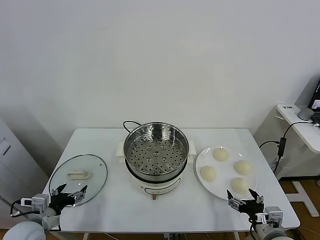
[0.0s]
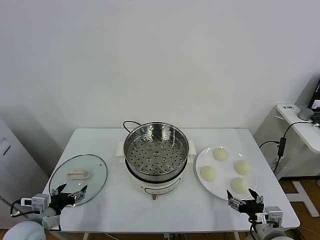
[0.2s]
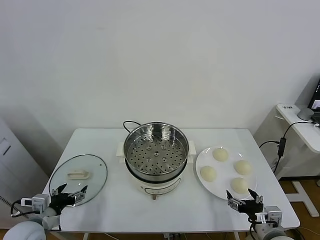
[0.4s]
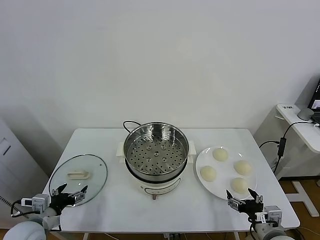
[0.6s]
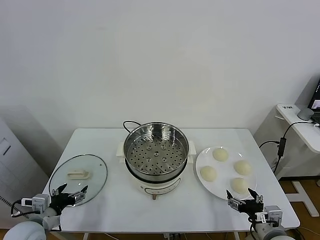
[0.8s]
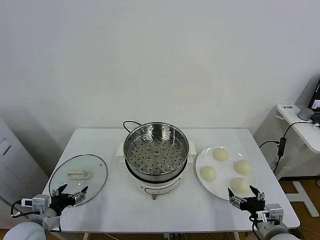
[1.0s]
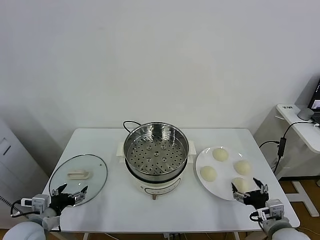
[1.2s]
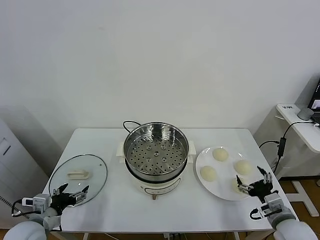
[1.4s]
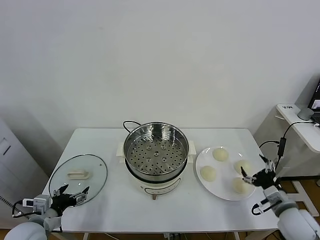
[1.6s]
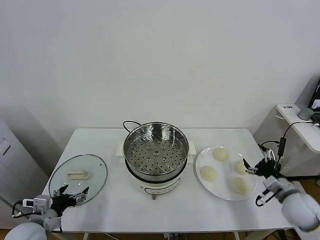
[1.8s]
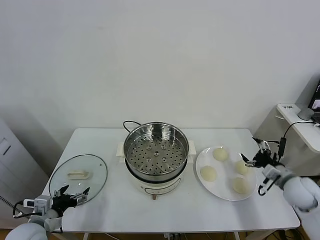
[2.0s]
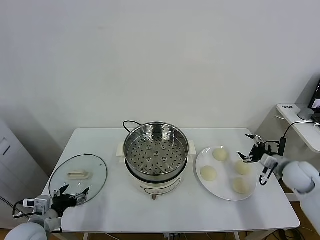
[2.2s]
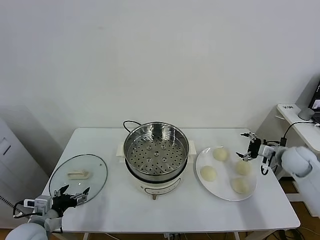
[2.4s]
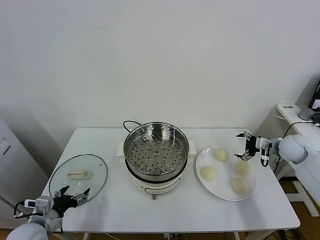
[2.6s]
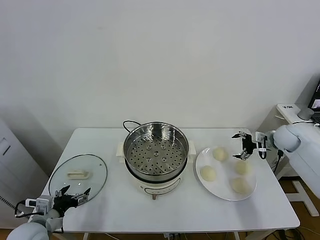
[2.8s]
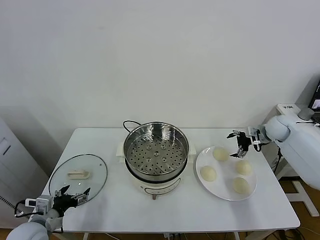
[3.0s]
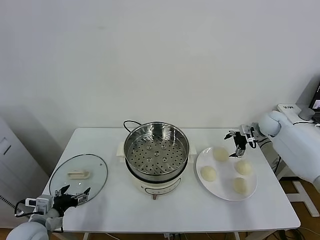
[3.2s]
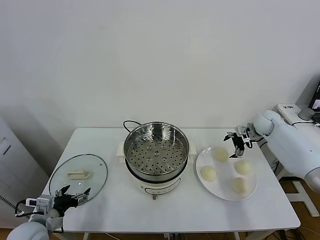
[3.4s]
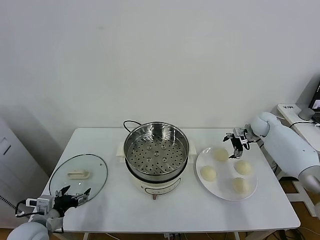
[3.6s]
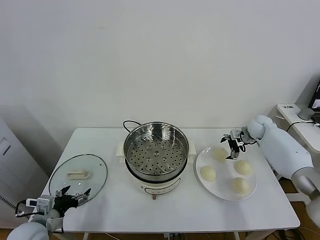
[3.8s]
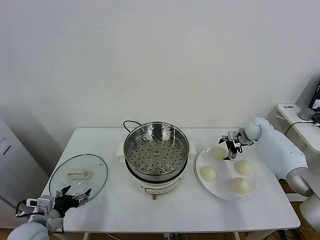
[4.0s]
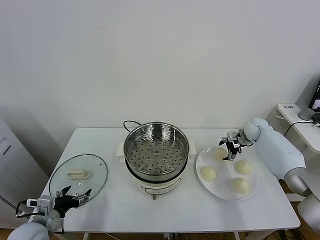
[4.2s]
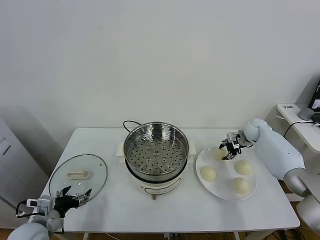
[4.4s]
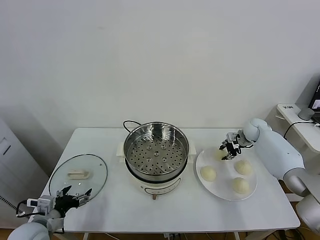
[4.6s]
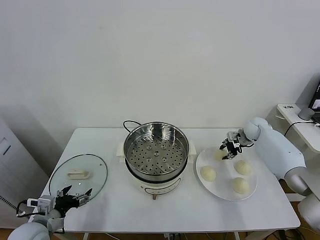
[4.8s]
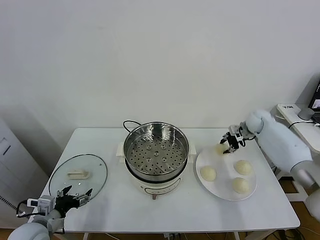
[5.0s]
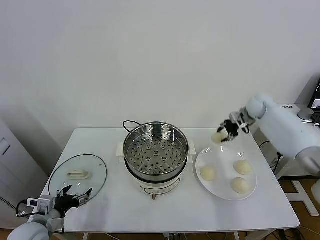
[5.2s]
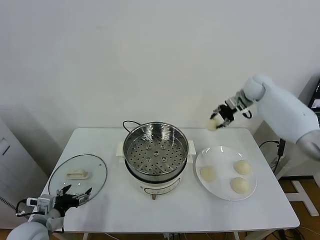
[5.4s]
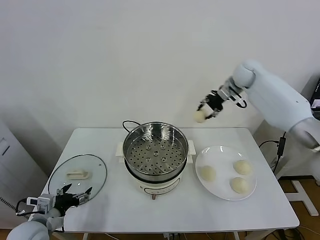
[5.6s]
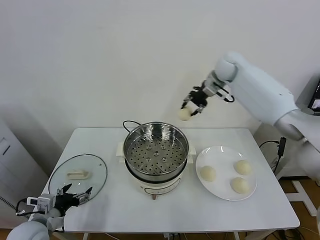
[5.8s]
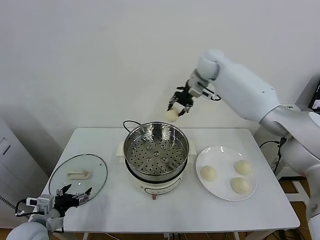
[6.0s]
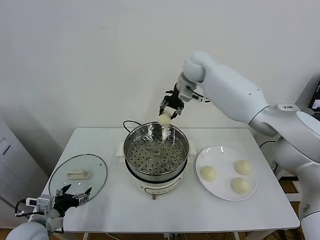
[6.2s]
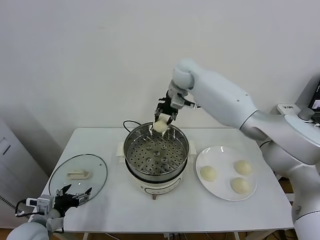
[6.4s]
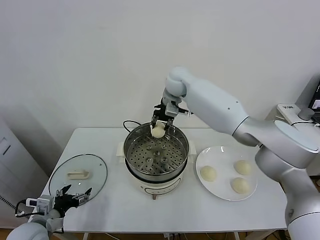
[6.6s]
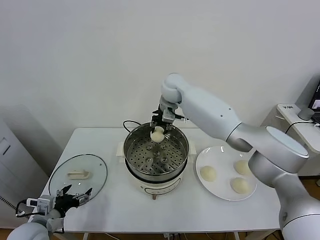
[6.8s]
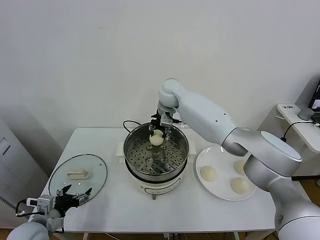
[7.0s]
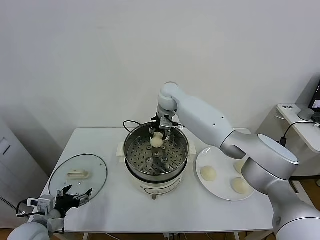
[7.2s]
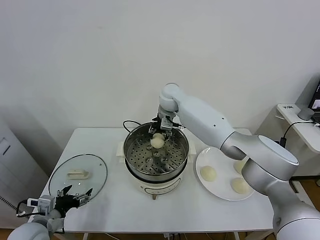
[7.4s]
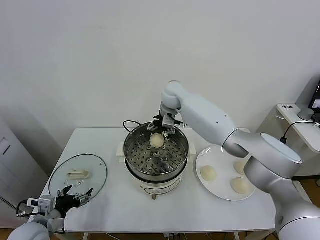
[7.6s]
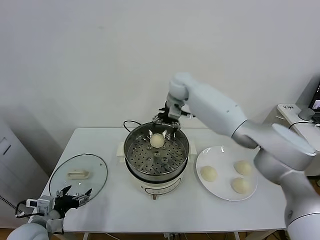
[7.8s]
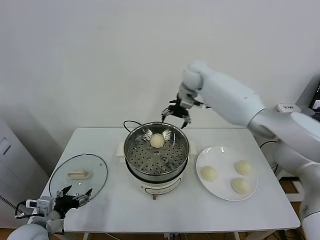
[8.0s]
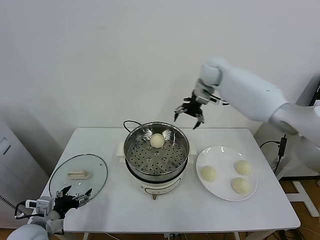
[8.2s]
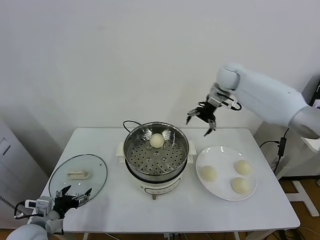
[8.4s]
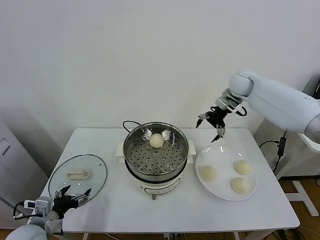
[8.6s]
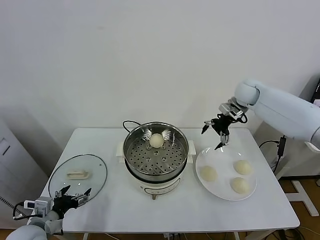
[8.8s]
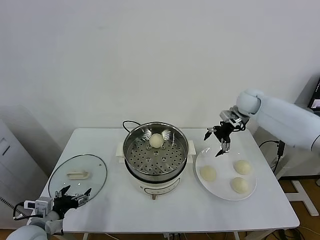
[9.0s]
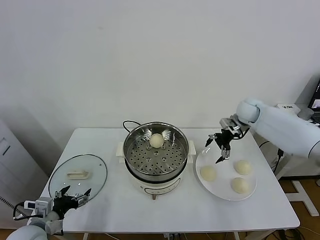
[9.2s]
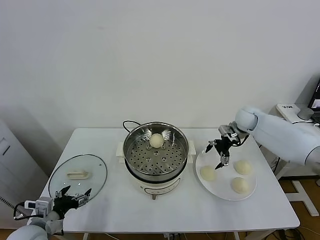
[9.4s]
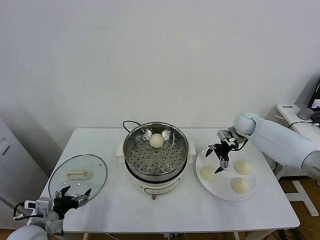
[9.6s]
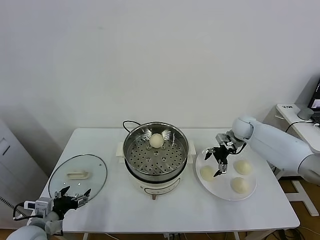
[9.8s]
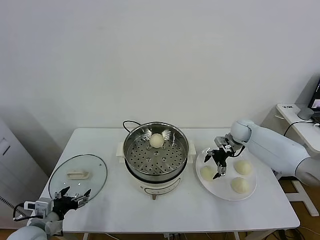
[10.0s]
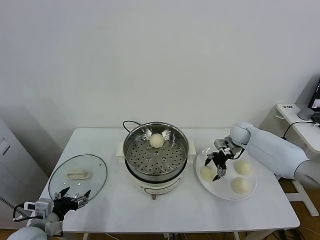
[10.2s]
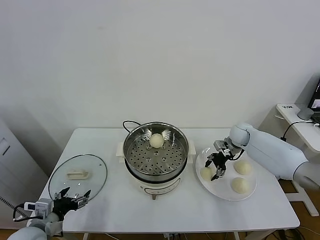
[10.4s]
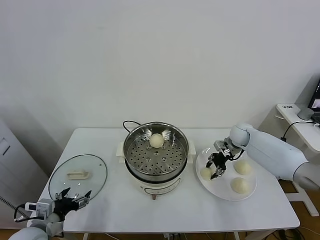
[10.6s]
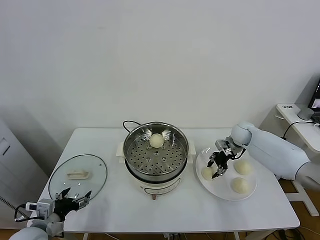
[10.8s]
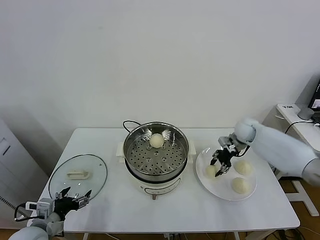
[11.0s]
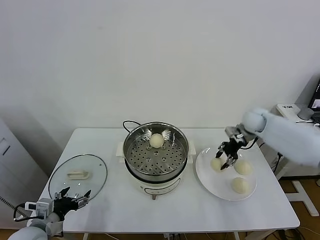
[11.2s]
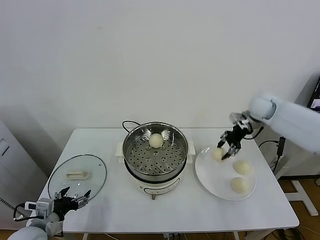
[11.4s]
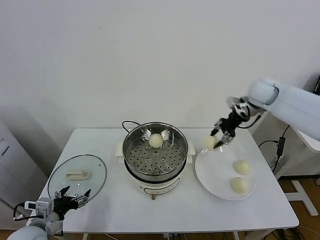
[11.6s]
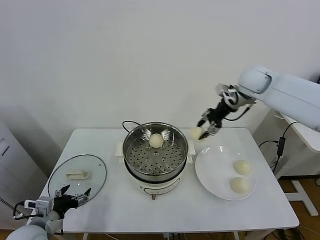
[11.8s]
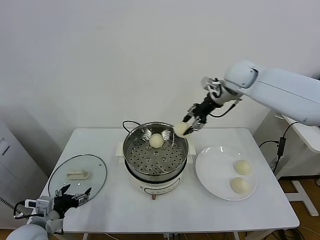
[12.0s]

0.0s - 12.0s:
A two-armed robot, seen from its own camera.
Task of the whole recording: take steamed baozi put them in steamer.
Step, 0.0s - 4.4s: Grasp the baozi in the plate with right gripper.
Step, 4.6s - 7.6s: Place the baozi on the steamer with right gripper.
Step, 8.0s - 10.4s: Grasp the baozi in the plate with right gripper.
1.6s - 3.0s: The right gripper is displaced forward by approximately 30 cm.
3.0s - 4.4s: The right gripper goes approximately 5 cm downward, and closes up.
4.4s - 6.0s: The right gripper shifts about 40 cm upward and to the left.
6.0s - 7.6s: The right gripper goes about 15 cm downward and to the left, and opens up.
7.6s - 9.0s: The right gripper moves to the right, some 30 cm.
9.0s - 10.4s: The right gripper travels downward by some 15 cm, and closes its fingers.
10.4s - 12.0s: The right gripper goes roughly 30 cm upward and to the left.

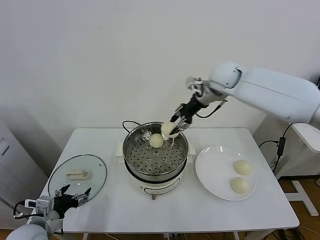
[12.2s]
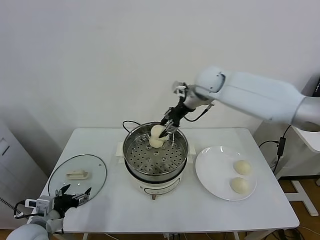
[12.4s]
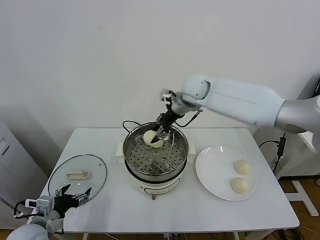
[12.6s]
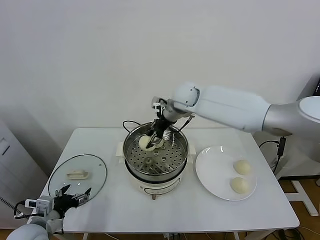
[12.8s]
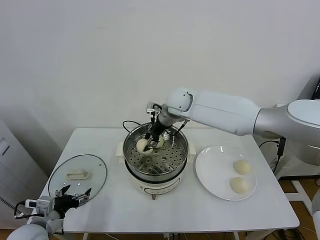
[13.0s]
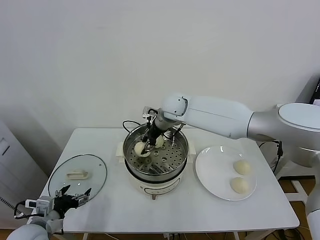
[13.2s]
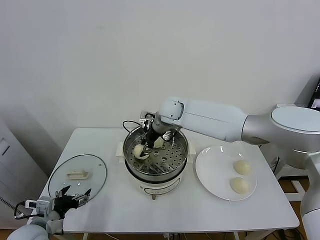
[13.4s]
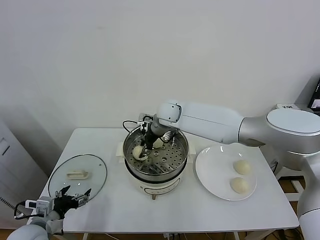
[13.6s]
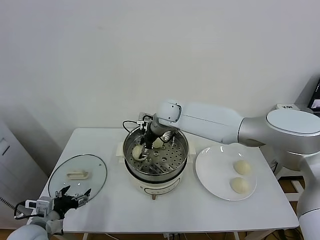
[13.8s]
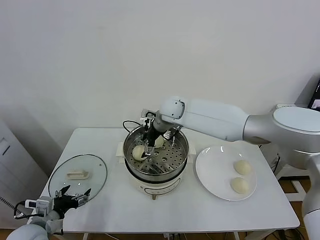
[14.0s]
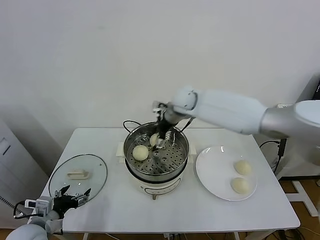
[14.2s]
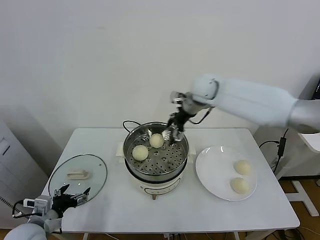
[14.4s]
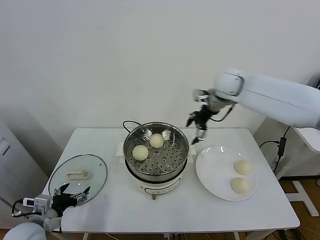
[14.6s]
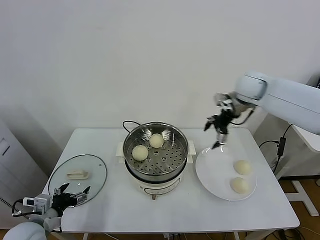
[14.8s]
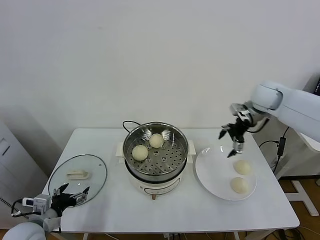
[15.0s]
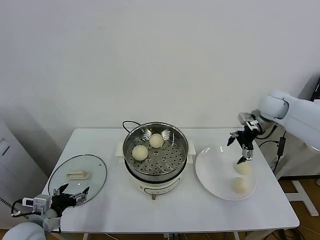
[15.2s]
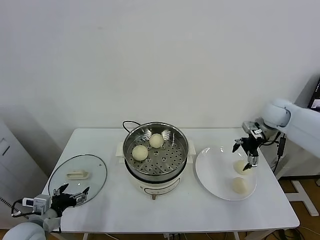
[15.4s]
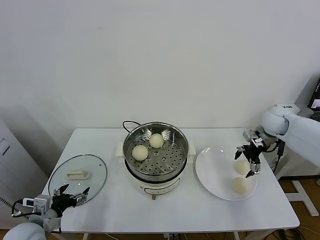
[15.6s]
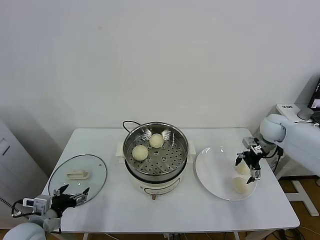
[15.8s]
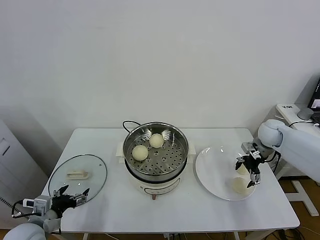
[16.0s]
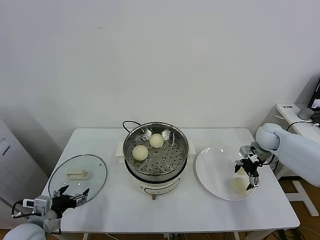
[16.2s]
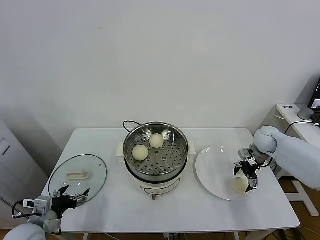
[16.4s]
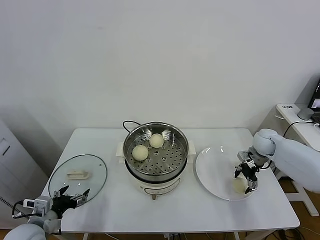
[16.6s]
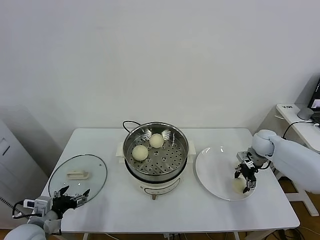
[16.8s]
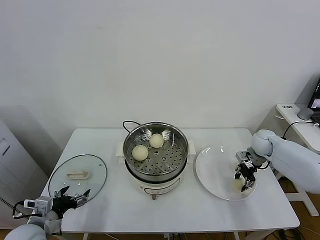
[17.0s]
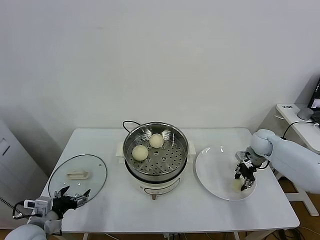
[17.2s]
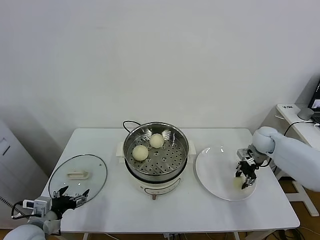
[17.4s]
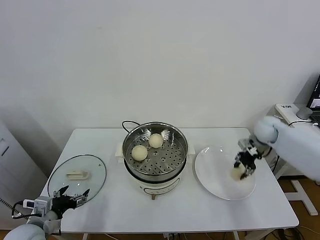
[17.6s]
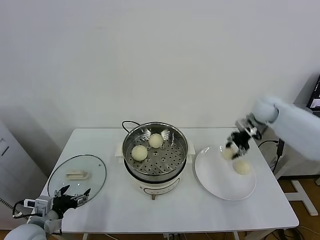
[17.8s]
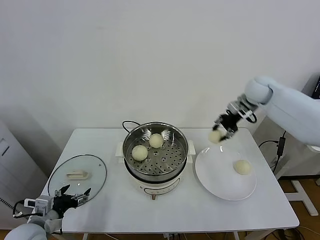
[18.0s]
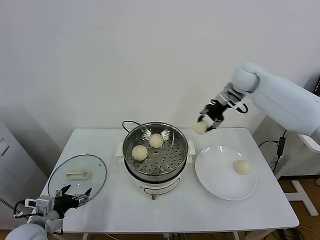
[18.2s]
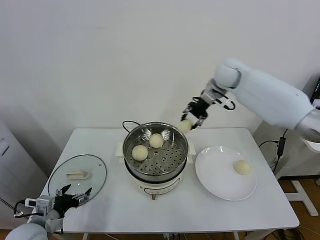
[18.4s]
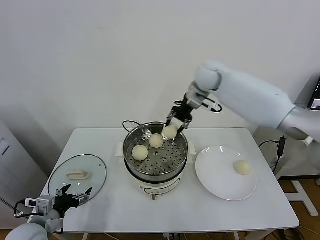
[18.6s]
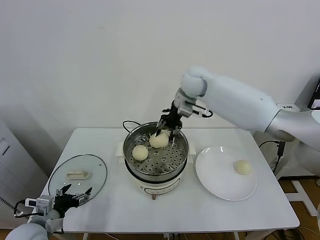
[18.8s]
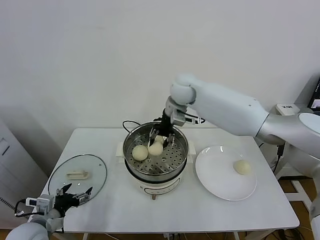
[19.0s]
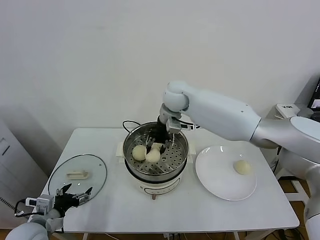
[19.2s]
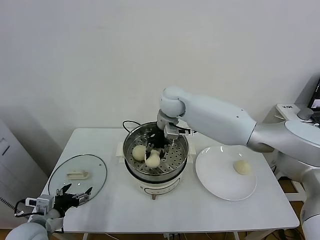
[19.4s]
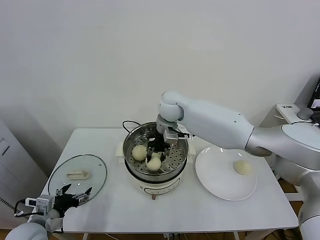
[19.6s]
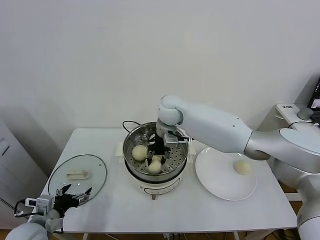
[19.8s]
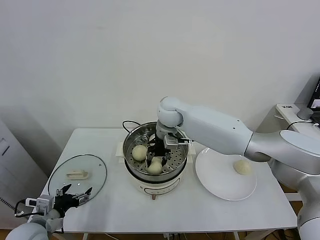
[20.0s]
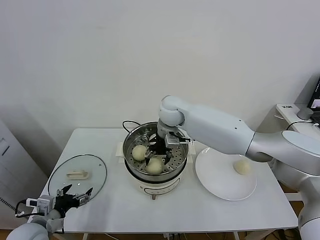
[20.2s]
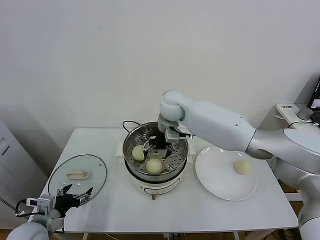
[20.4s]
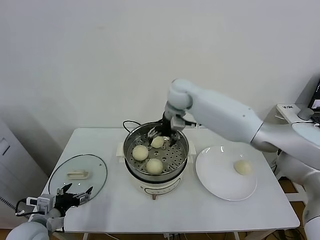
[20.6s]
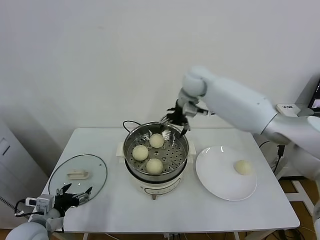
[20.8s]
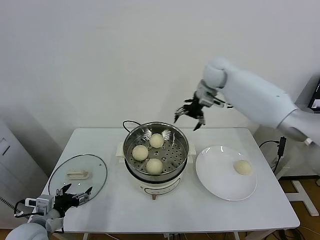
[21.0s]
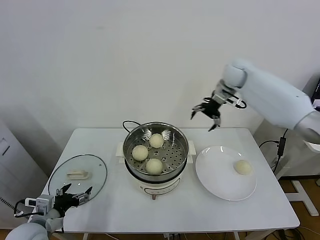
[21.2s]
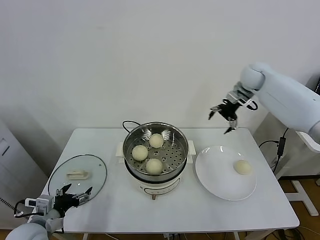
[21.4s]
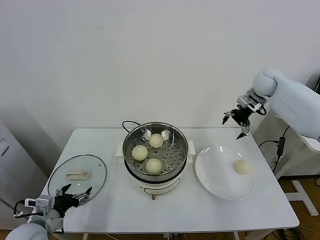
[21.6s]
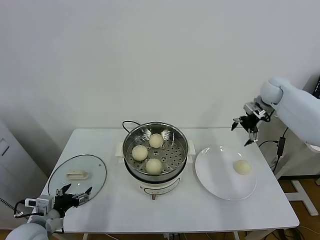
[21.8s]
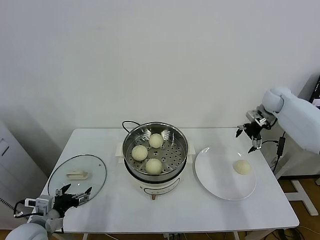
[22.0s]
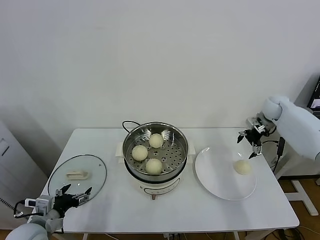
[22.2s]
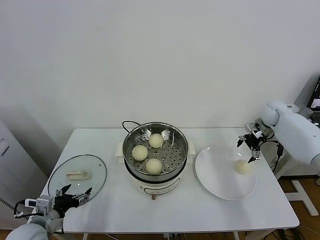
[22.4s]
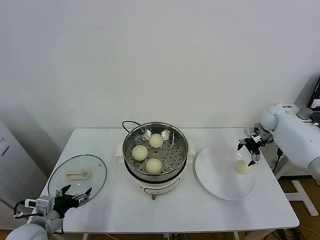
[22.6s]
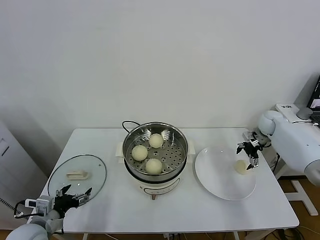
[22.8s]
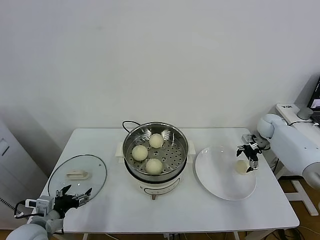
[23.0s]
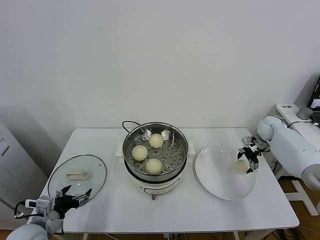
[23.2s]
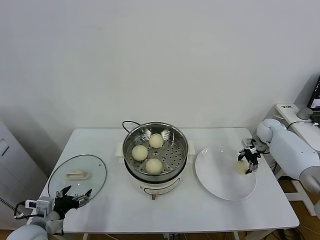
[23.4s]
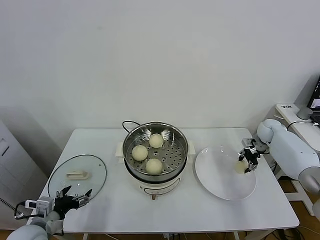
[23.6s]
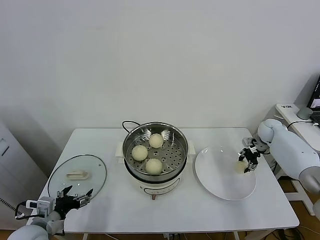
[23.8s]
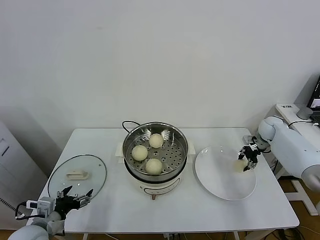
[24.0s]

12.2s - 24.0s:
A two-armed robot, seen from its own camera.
Task of the whole recording: take steamed baozi put them in steamer.
Step, 12.2s - 14.0s: Place the baozi on the steamer with right gripper.
Step, 14.4s - 17.0s: Grasp the baozi in the plate with right gripper.
Step, 17.2s - 20.4s: Place the baozi on the steamer with right gripper.
Step, 20.6s - 23.6s: Grasp the baozi in the plate with right gripper.
12.2s - 13.6s: The right gripper travels to the left and downward by some 20 cm.
13.6s - 15.2s: The right gripper heads to the right, covering about 35 cm, and opens.
15.2s - 16.6s: The right gripper goes roughly 15 cm downward.
16.6s - 18.2s: The right gripper heads upward and to the left, covering approximately 30 cm, and closes.
18.2s - 19.6s: The right gripper goes about 25 cm to the left.
19.6s - 21.0s: The right gripper is displaced to the right, upward and forward by some 20 cm, and opens its fingers.
21.0s - 22.6s: The right gripper moves to the right and downward, about 30 cm.
22.6s - 24.0s: The right gripper closes.
